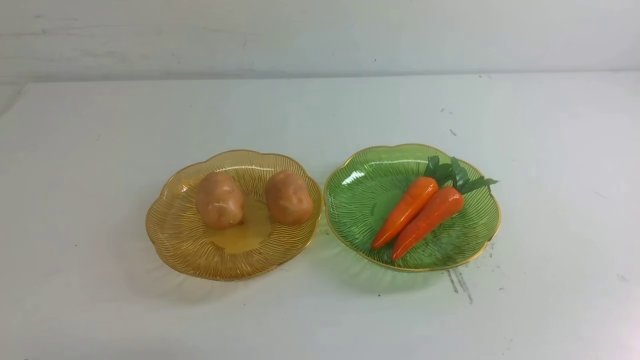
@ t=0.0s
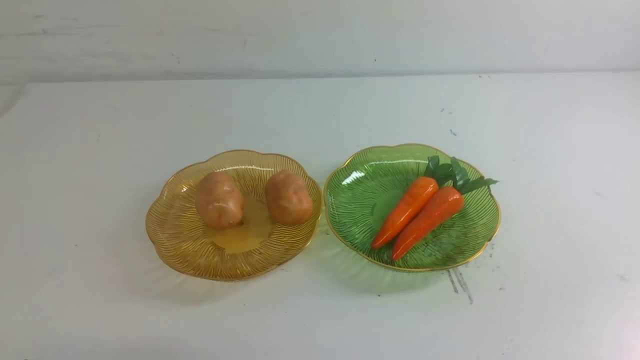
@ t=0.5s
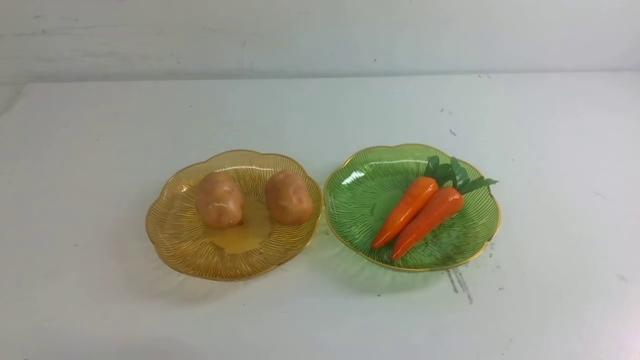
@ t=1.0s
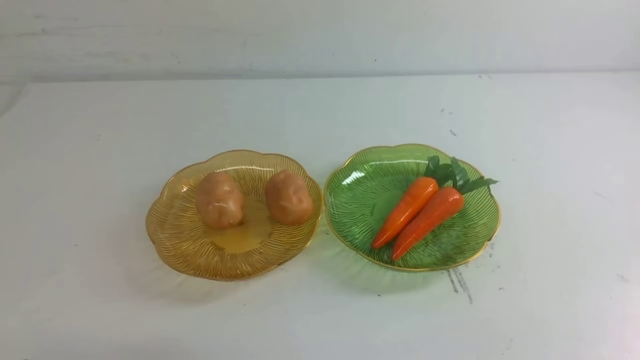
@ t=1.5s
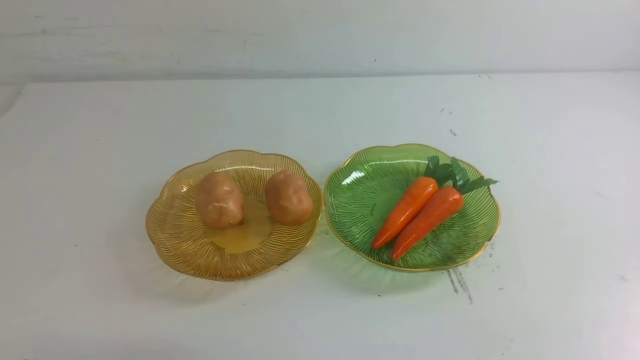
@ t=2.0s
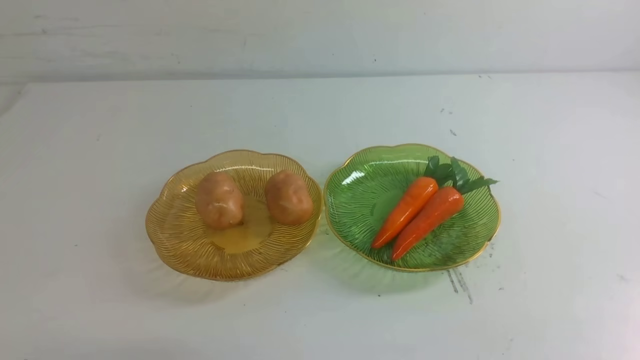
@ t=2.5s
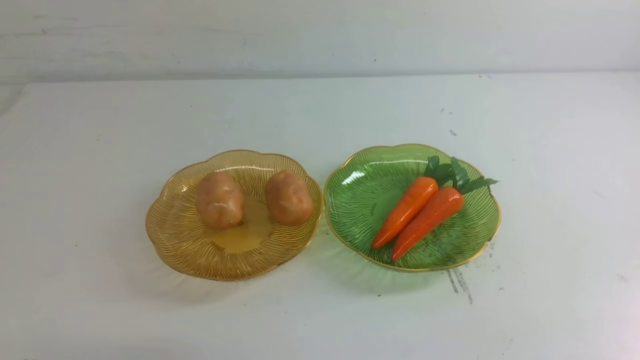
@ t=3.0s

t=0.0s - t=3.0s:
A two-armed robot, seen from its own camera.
t=1.5s - t=3.0s: The two grippers keep their place.

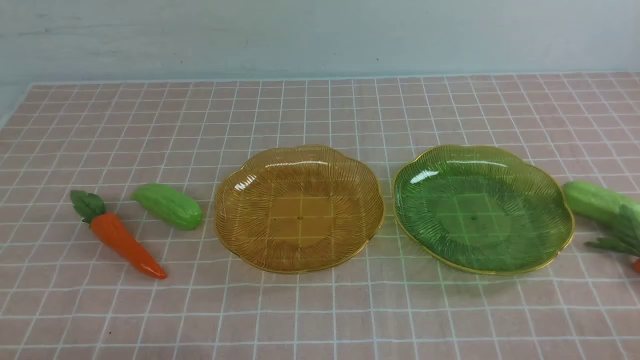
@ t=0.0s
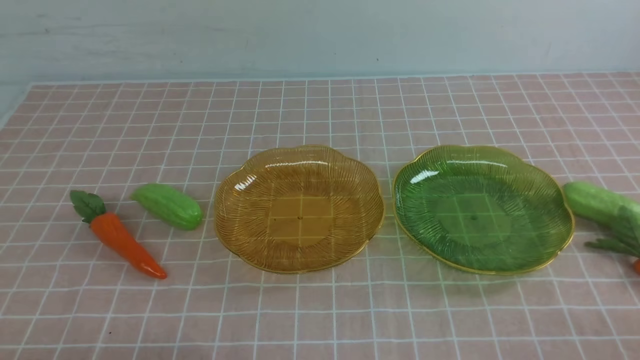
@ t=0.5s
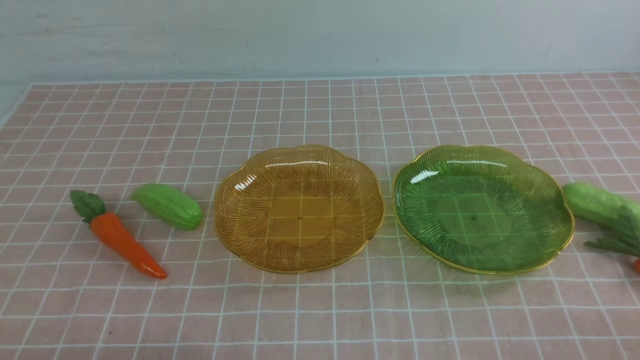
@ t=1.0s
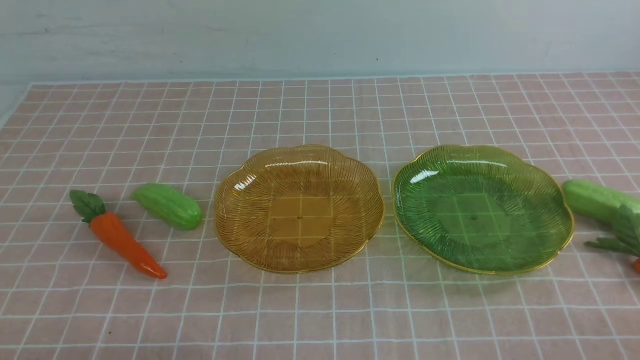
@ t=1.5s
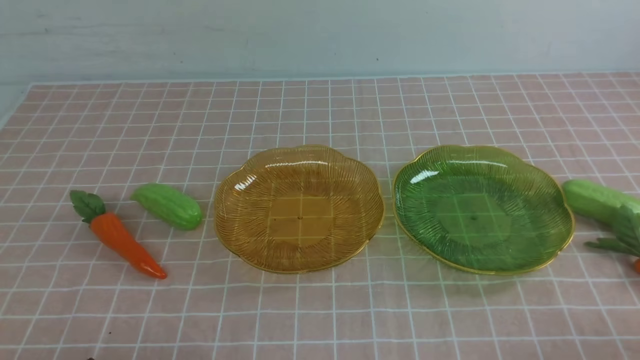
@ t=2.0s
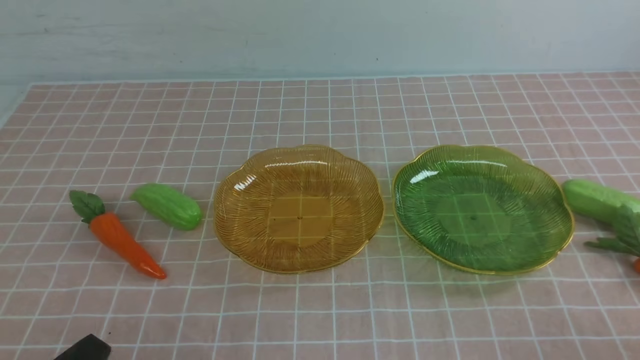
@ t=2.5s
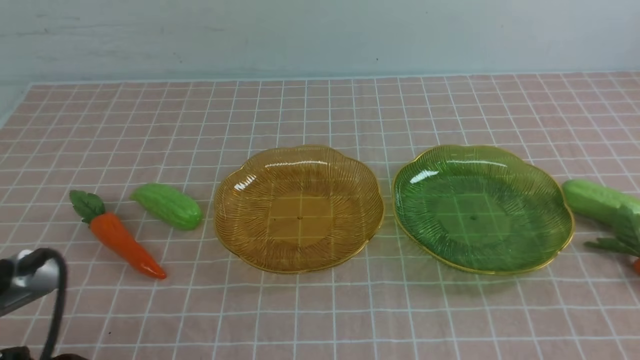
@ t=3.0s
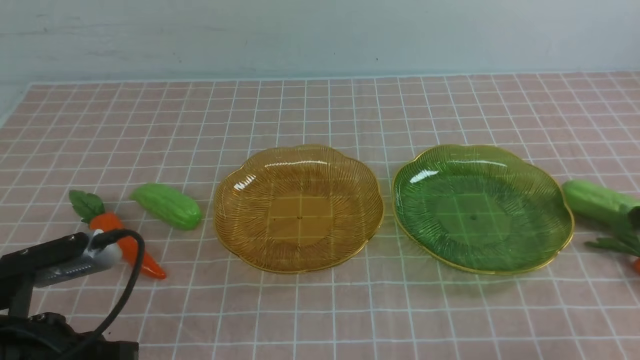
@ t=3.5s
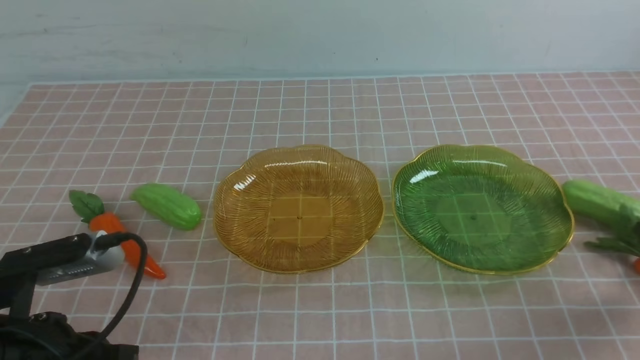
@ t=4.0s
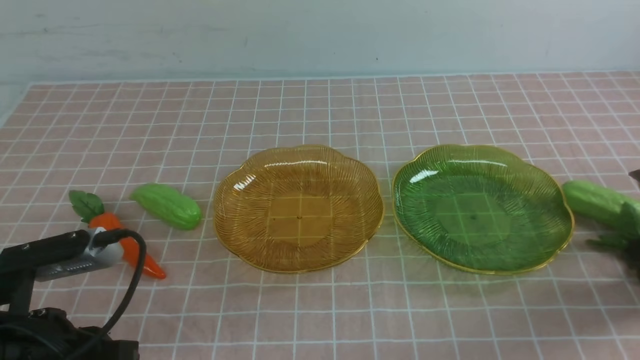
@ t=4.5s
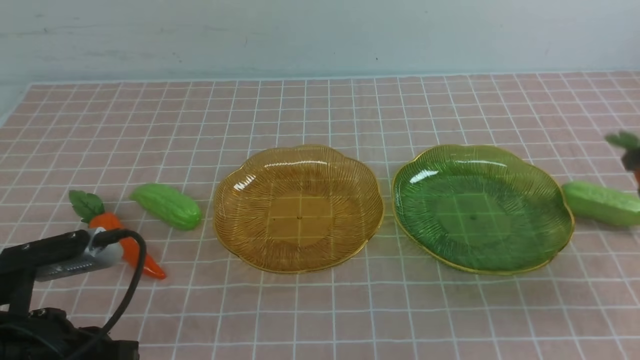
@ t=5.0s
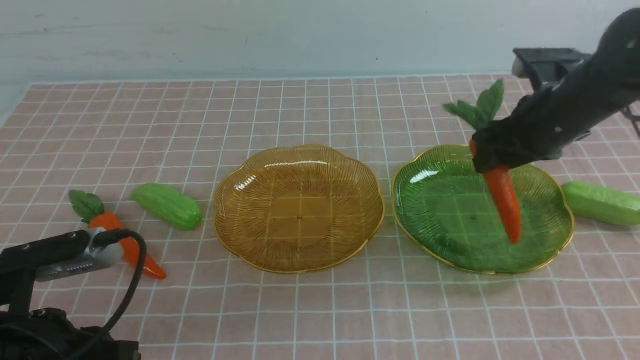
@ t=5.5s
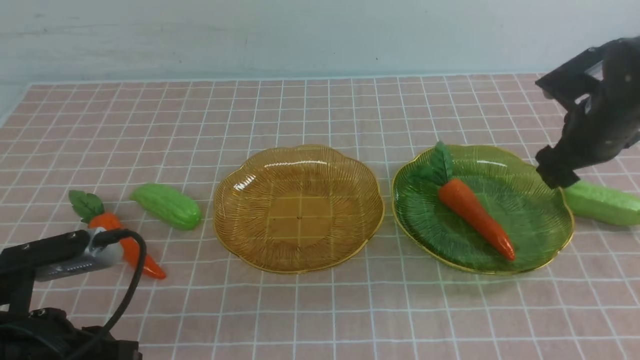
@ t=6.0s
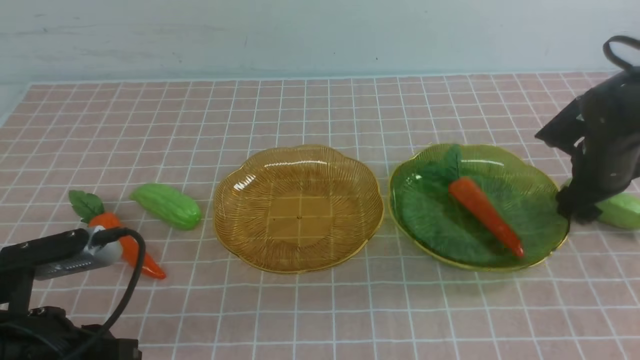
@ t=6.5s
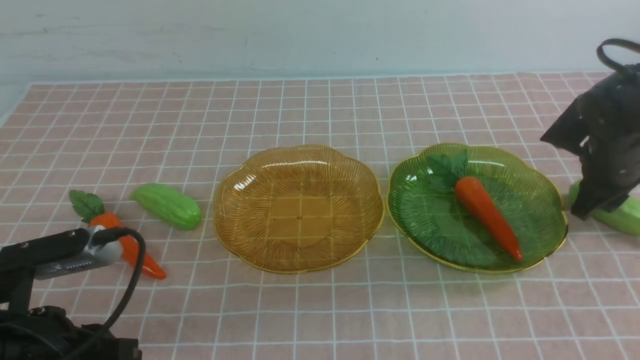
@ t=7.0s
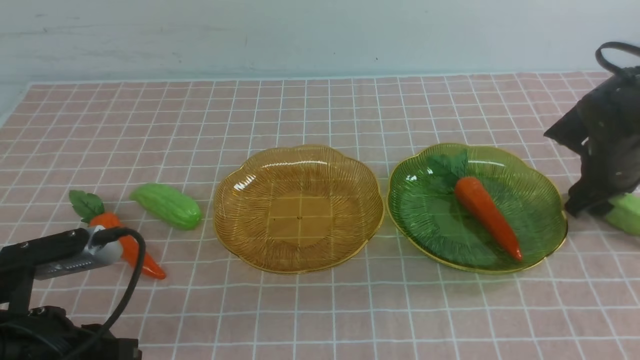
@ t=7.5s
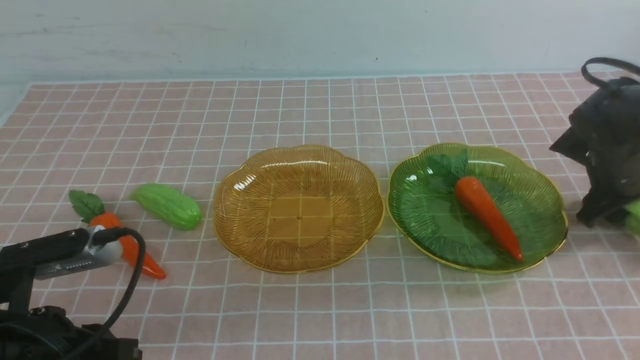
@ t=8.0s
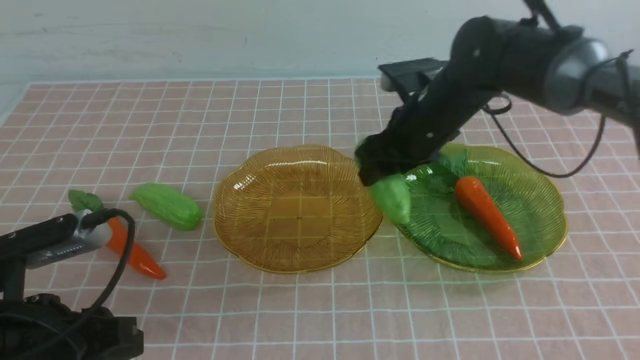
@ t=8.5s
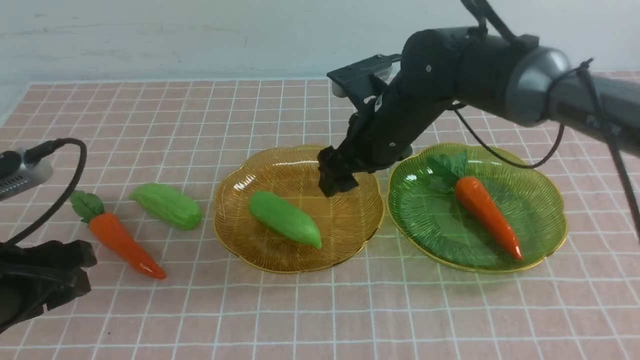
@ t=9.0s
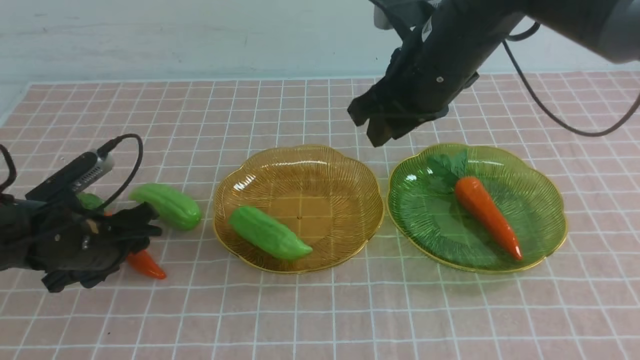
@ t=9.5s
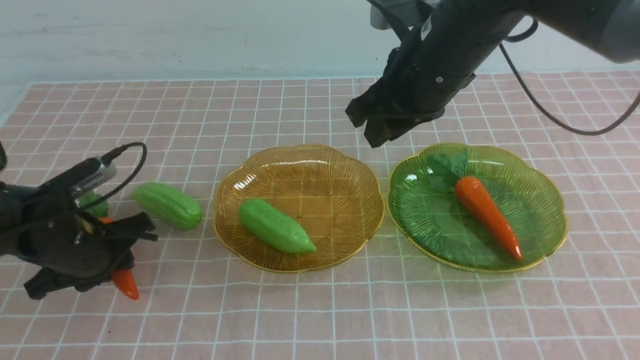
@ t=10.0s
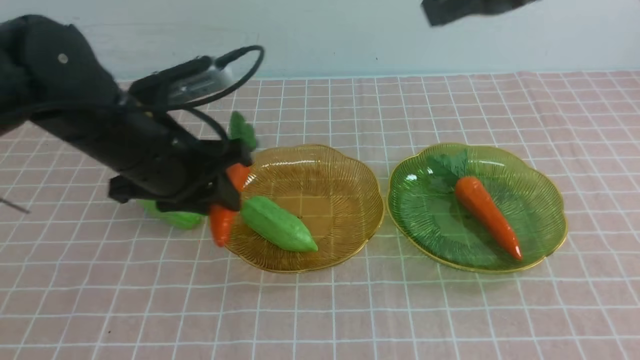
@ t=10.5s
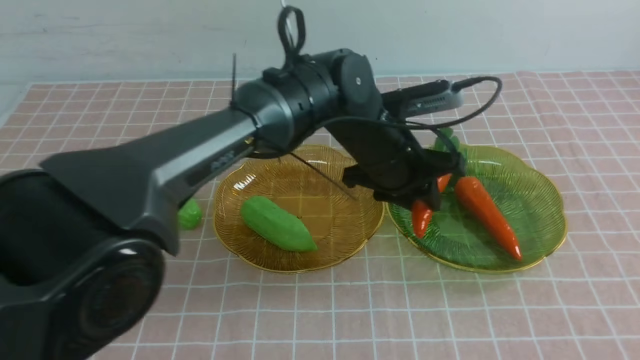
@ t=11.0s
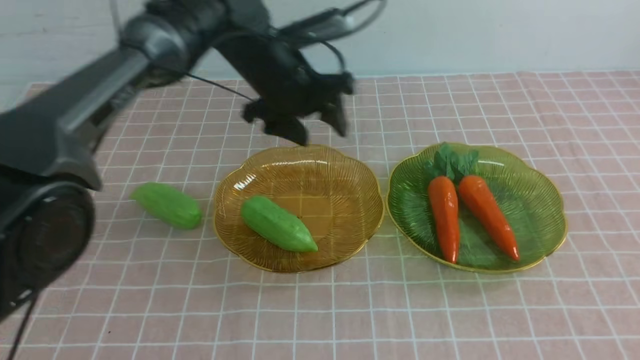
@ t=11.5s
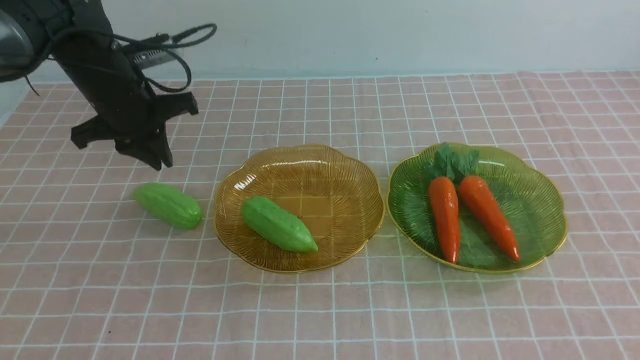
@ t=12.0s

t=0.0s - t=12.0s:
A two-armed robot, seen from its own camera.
Step, t=0.0s - t=5.5s: use the right arm to grab a carrot and put it into the right plate.
Step, t=6.0s - t=8.5s: Grab the chayote with your right arm and put it on the left plate.
Step, t=9.0s - t=11.0s: use the left arm to grab a carrot and put it into the right plate.
t=2.0s - t=4.0s: The right gripper heads forward, covering roughly 30 cm, and opens up. Meanwhile the left gripper is displaced forward and upward by about 10 cm.
t=4.0s - t=6.0s: The right gripper is displaced forward and to the left by some 10 cm.
t=6.0s - t=8.0s: The left gripper opens its fingers. The right gripper shifts about 25 cm to the left.
t=8.0s - t=10.0s: The left gripper shifts some 30 cm to the right and forward. The right gripper shifts some 35 cm upward, backward and to the right, and closes its fingers.
t=10.0s - t=12.0s: The right gripper travels backward and to the right by about 10 cm, while the left gripper shifts approximately 25 cm to the left, downward and forward, and opens.

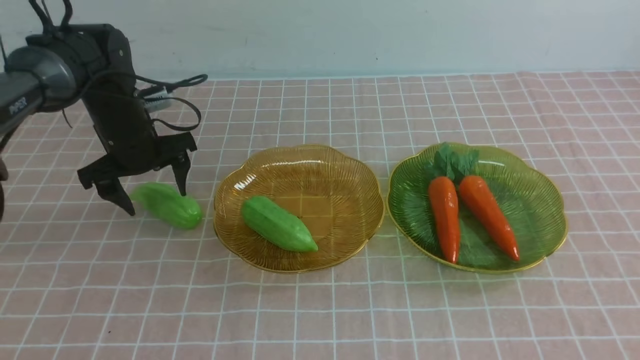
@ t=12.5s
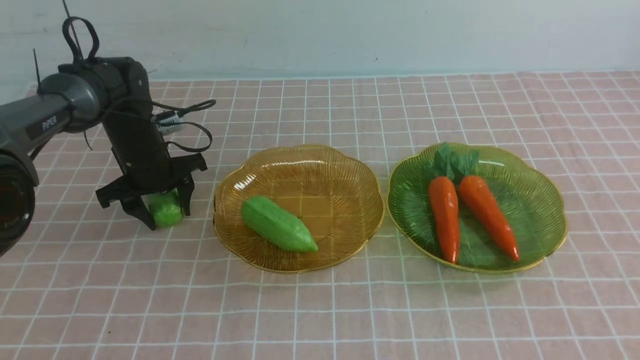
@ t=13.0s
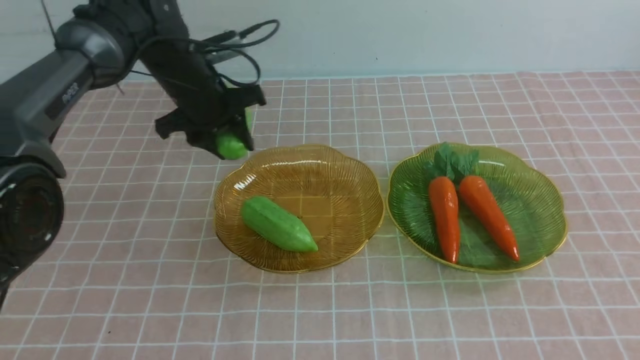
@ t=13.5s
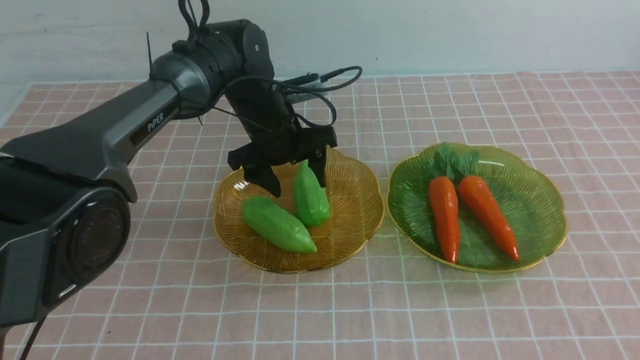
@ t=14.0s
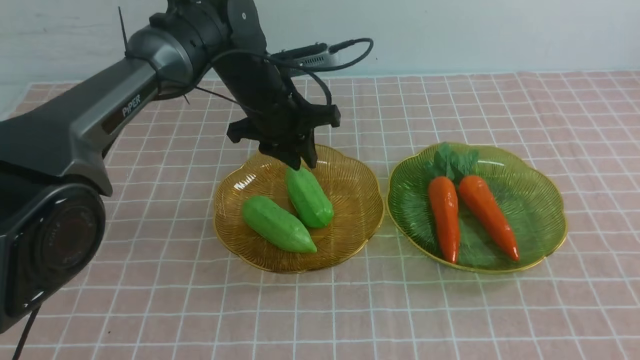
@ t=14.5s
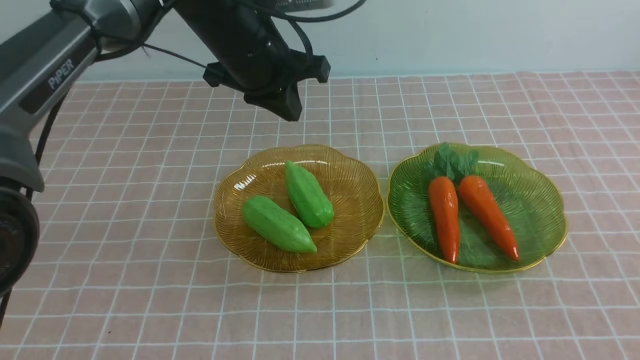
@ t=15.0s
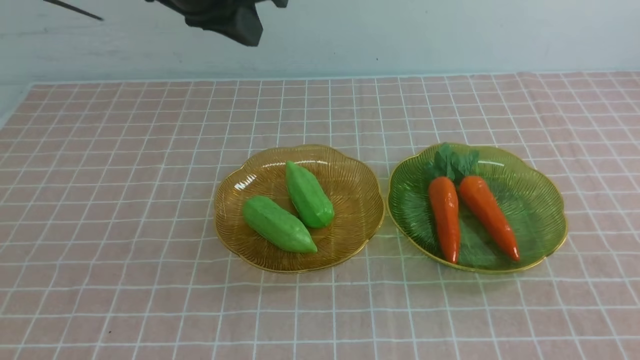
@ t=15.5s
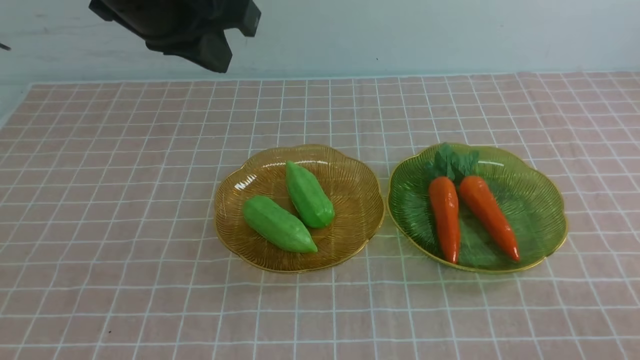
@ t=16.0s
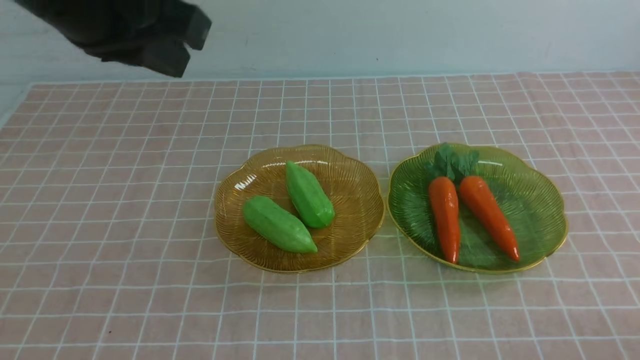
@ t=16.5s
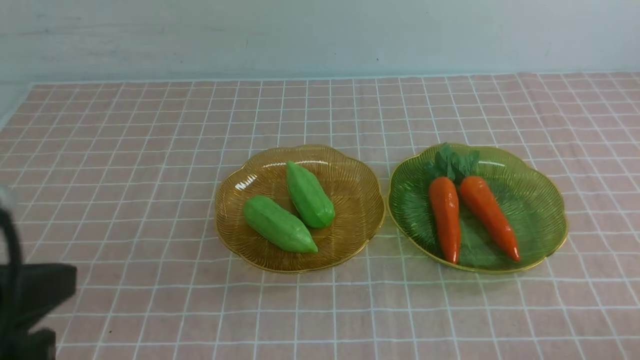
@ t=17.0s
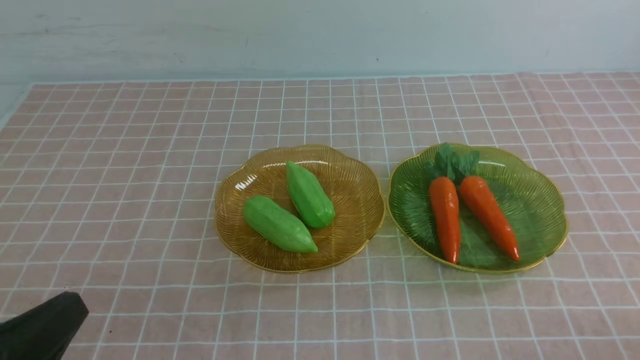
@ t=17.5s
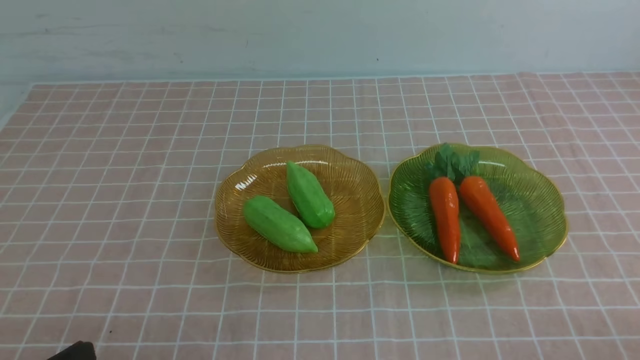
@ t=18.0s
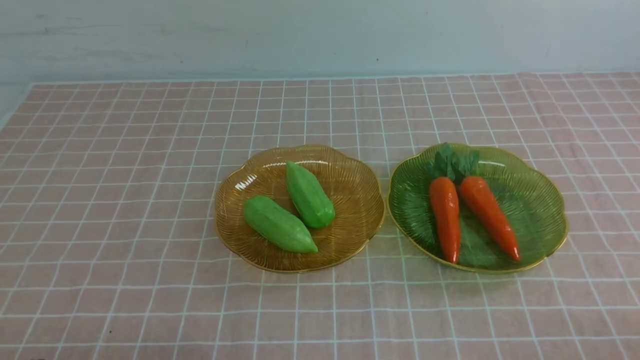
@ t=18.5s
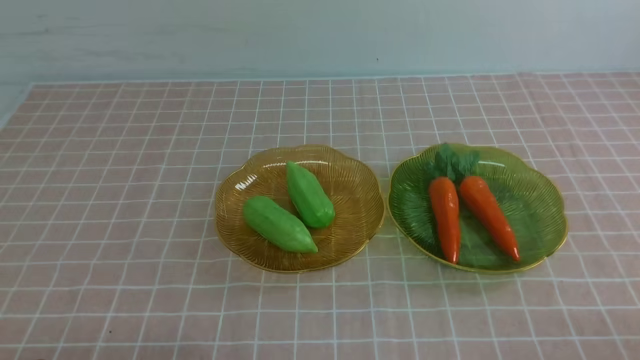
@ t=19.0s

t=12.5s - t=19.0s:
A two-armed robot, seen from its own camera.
t=12.5s - t=14.5s: The left gripper goes some 25 cm upward, to the right and backward, and closes, while the right gripper shifts about 15 cm downward and backward.
t=14.5s - t=17.0s: The left gripper travels backward, downward and to the left by approximately 40 cm, while the right gripper is displaced downward by some 15 cm.
t=17.0s - t=19.0s: The grippers stay close to where they were, moving slightly.
